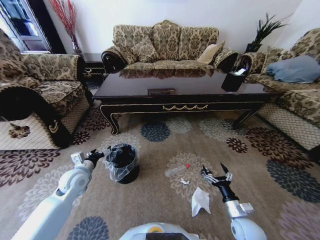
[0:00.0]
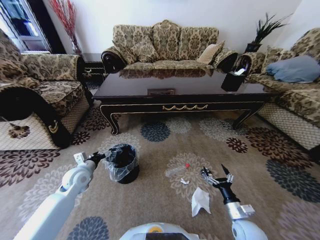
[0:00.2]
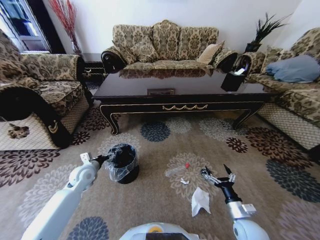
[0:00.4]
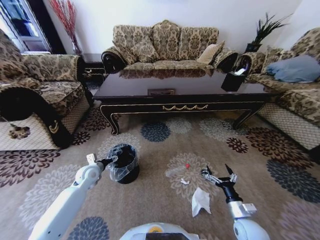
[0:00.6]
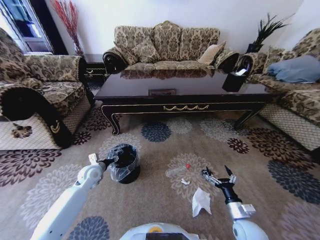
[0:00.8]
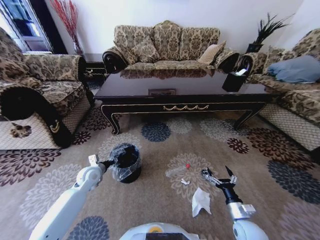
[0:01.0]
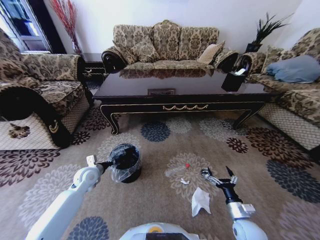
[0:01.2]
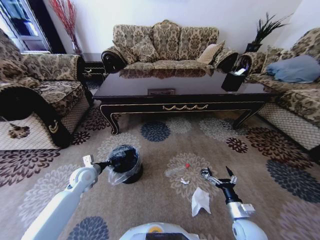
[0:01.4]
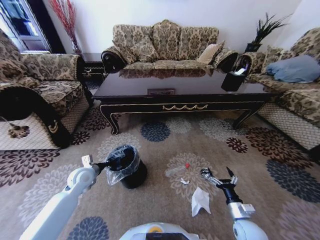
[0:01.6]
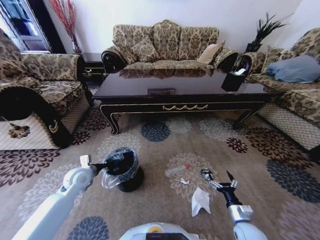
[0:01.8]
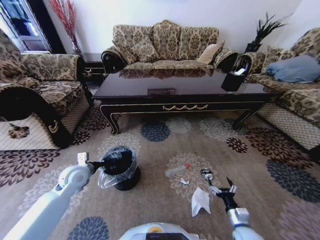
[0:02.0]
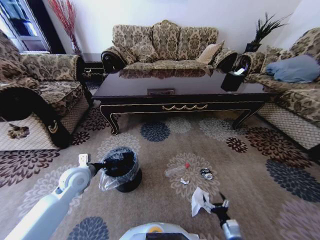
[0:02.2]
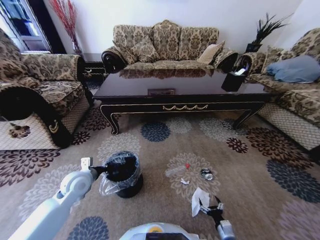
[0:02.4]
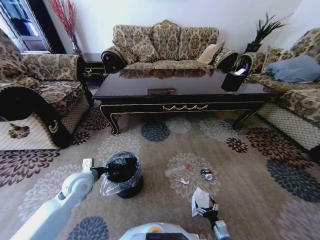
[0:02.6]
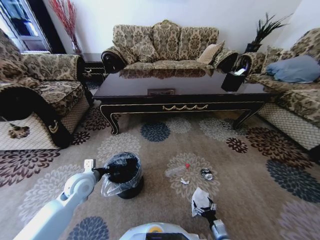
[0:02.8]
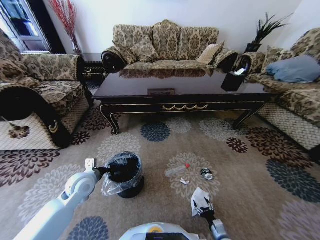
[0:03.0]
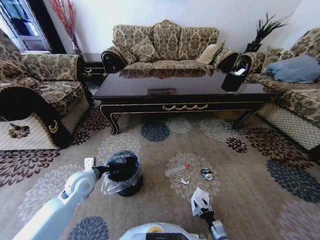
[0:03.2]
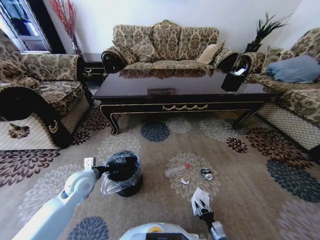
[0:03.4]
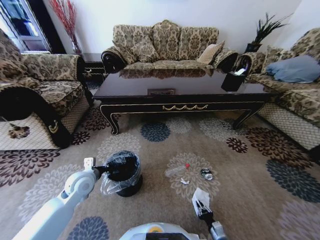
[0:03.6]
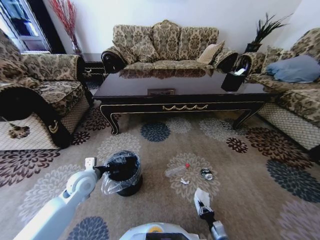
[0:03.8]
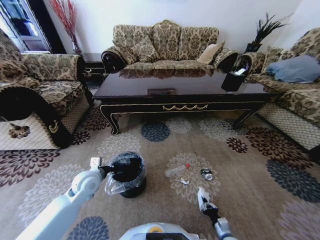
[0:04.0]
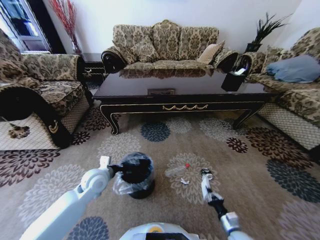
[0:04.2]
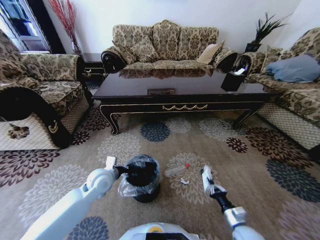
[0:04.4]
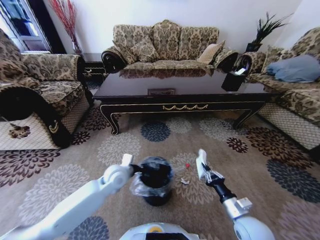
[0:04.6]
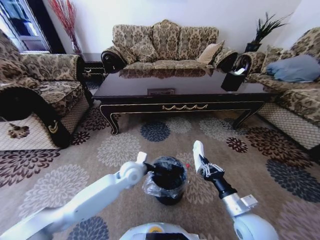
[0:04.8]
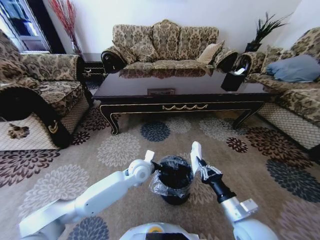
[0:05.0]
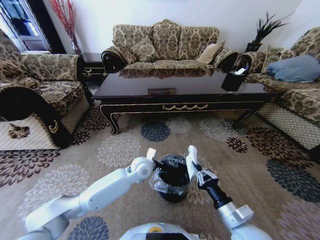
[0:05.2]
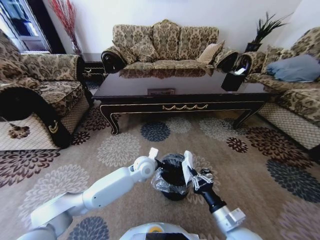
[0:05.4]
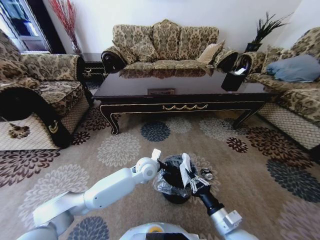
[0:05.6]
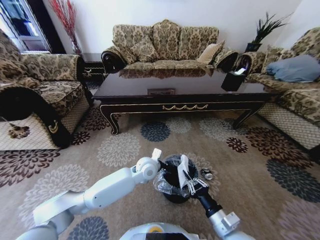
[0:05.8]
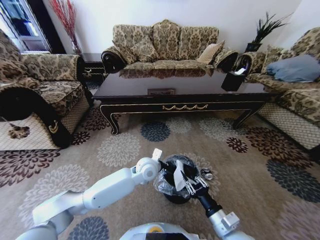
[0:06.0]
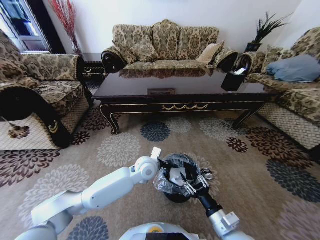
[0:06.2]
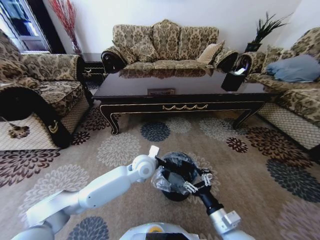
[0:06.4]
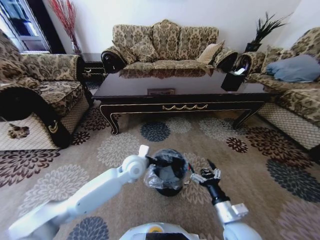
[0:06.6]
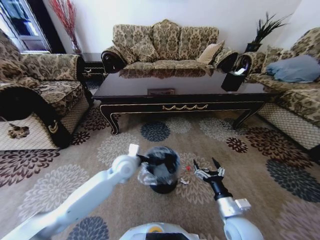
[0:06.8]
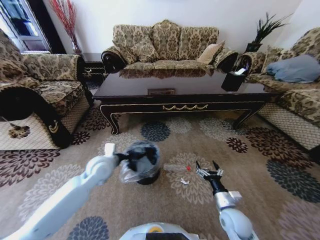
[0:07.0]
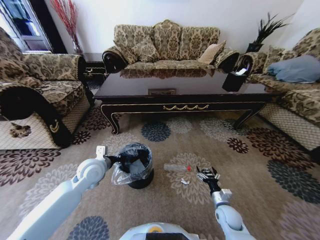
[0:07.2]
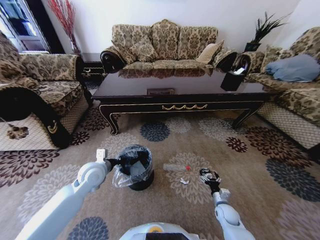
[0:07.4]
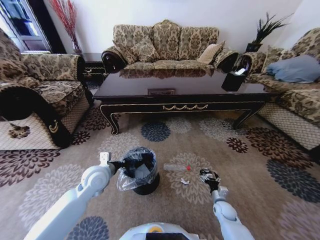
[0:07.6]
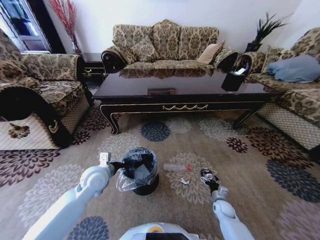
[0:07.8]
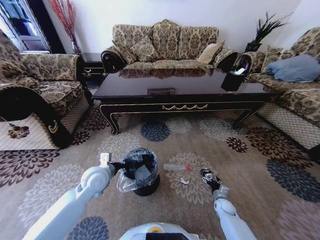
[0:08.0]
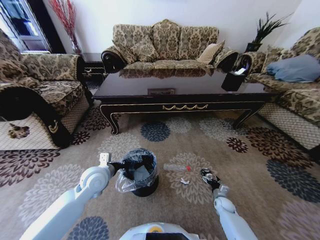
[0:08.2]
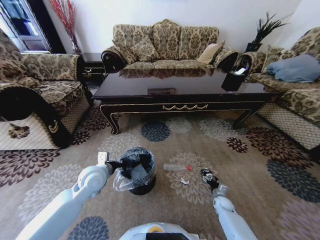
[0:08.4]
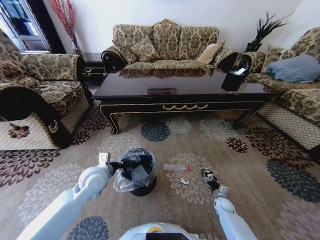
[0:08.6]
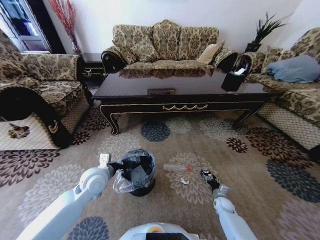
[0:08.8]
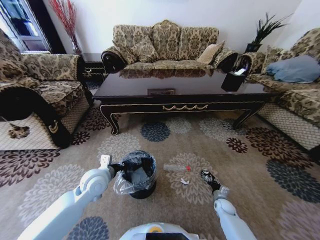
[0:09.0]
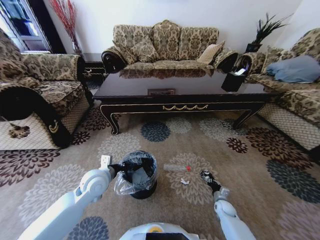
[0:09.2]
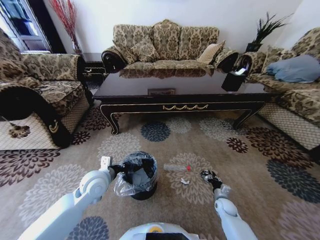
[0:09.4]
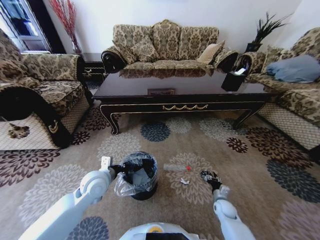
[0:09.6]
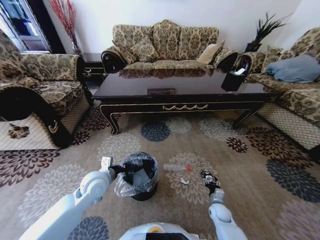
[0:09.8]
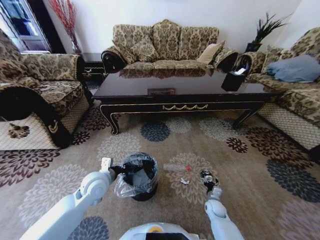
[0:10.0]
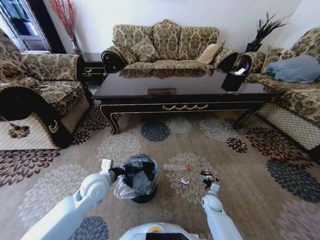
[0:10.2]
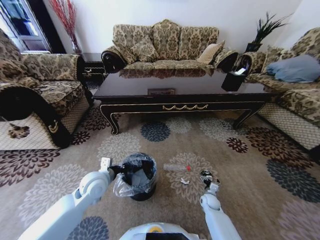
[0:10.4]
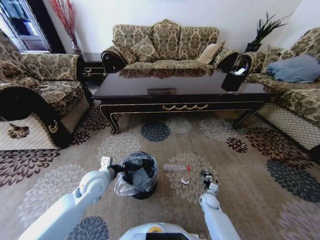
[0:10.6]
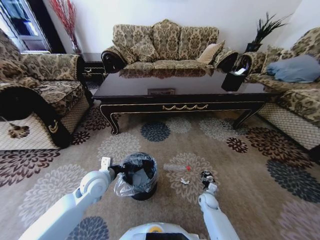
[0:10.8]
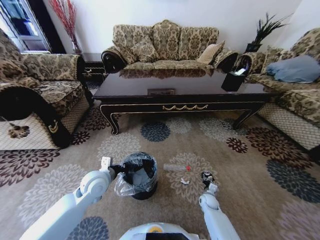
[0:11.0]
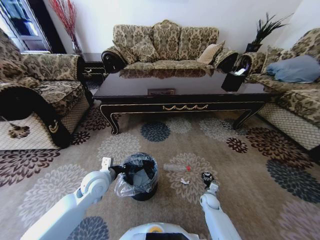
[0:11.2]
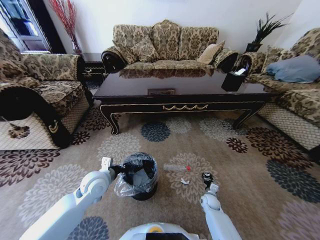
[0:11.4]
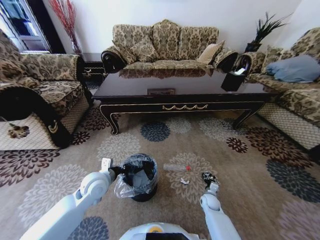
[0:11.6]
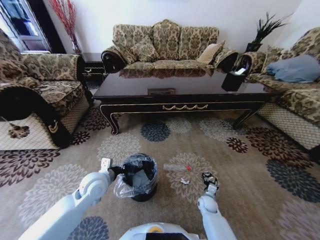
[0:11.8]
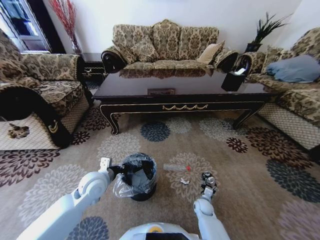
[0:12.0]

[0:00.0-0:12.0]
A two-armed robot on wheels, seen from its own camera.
Task of the whole recording: Move to the front of the table and pick up the trash from the floor, then place it into the trash bin.
0:00.0 to 0:01.6: The left gripper closes its fingers.
0:01.6 to 0:03.0: The right gripper travels downward by some 15 cm, while the left gripper ends up roughly 5 cm from where it was.
0:03.0 to 0:04.4: The left gripper travels to the right by some 10 cm. Meanwhile the right gripper travels upward by about 15 cm, and closes its fingers.
0:04.4 to 0:06.0: The left gripper is displaced to the right by about 20 cm. Meanwhile the right gripper shifts roughly 15 cm to the left and upward.
0:06.0 to 0:07.6: The left gripper goes some 20 cm to the left. Meanwhile the right gripper travels downward, forward and to the right by roughly 25 cm, and opens.
0:07.6 to 0:09.0: The right gripper changes place by some 5 cm, and closes up.
0:09.0 to 0:10.4: The right gripper travels to the left by about 10 cm, and opens up.
0:10.4 to 0:12.0: The right gripper changes place by about 5 cm, and closes, then opens again.

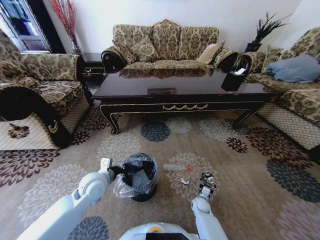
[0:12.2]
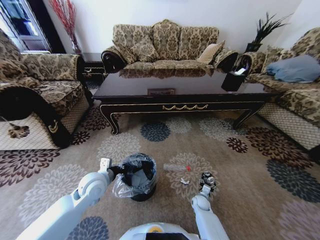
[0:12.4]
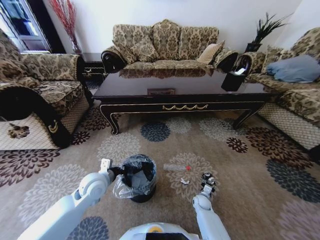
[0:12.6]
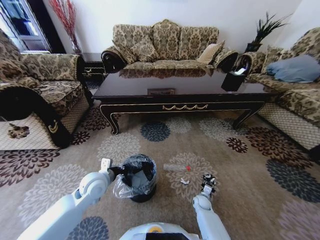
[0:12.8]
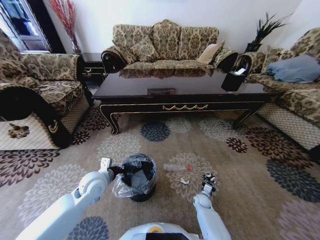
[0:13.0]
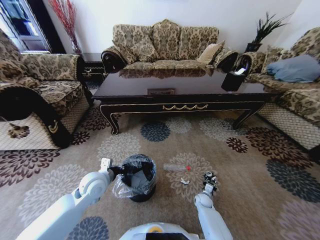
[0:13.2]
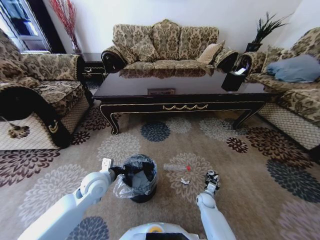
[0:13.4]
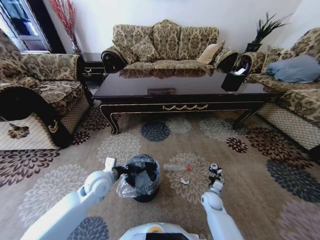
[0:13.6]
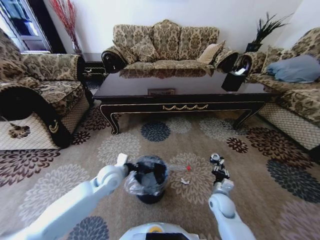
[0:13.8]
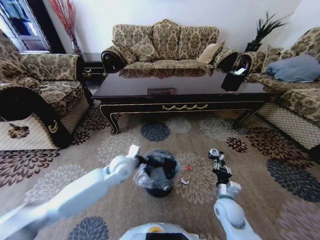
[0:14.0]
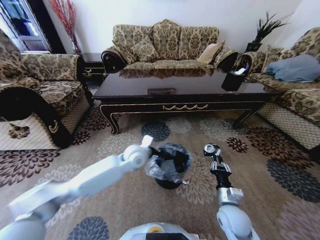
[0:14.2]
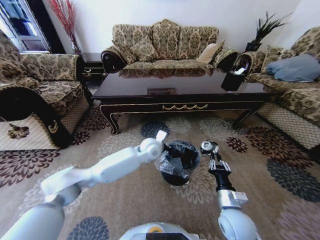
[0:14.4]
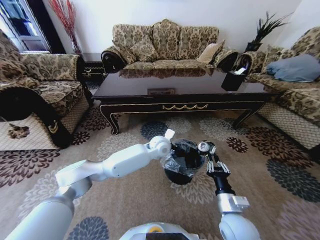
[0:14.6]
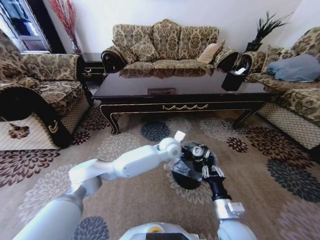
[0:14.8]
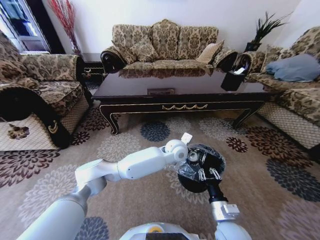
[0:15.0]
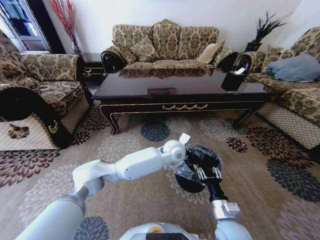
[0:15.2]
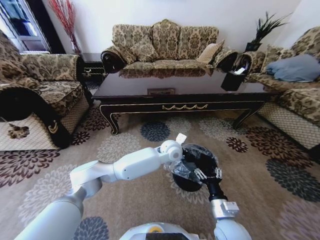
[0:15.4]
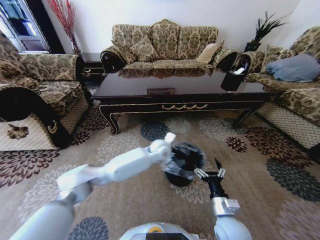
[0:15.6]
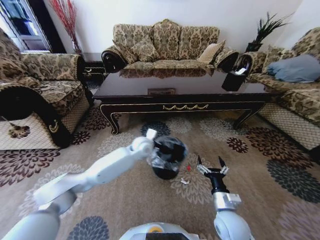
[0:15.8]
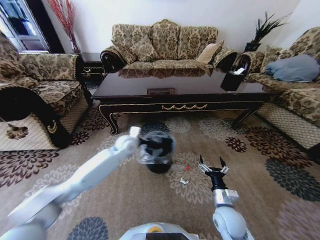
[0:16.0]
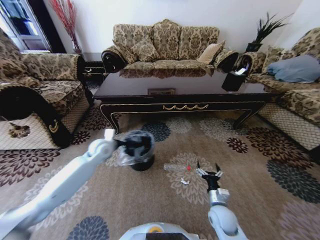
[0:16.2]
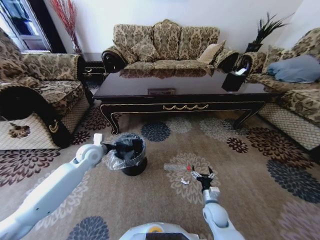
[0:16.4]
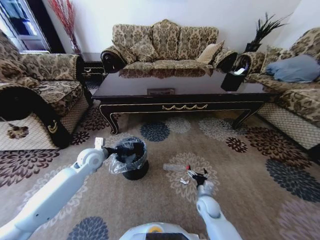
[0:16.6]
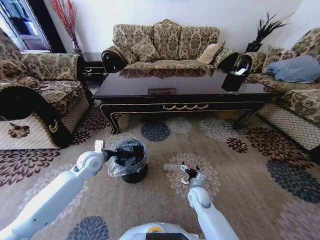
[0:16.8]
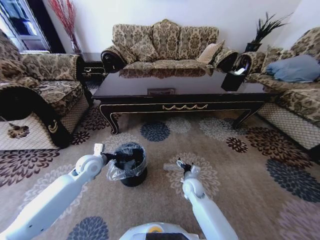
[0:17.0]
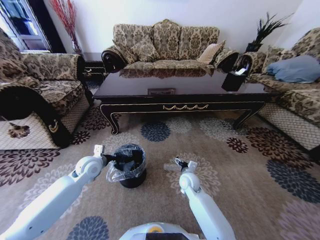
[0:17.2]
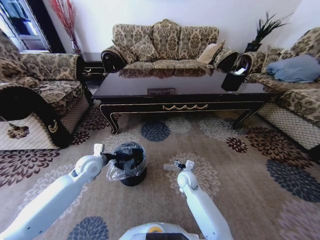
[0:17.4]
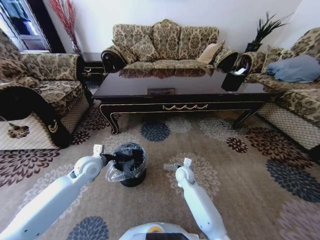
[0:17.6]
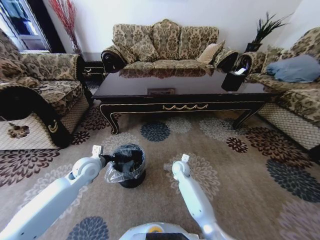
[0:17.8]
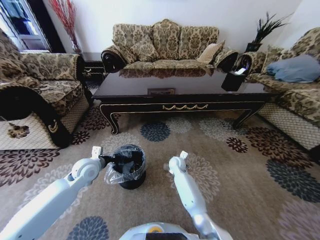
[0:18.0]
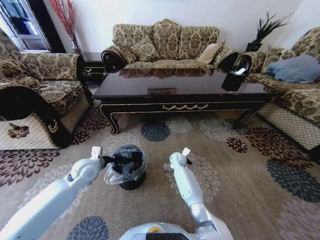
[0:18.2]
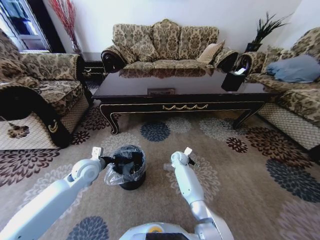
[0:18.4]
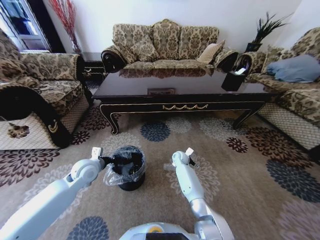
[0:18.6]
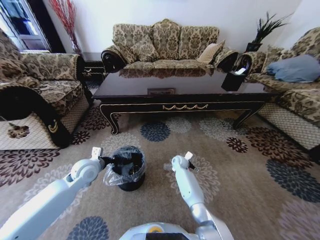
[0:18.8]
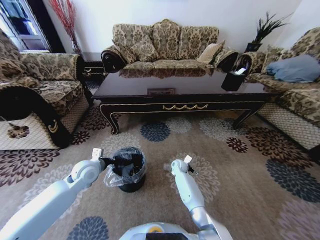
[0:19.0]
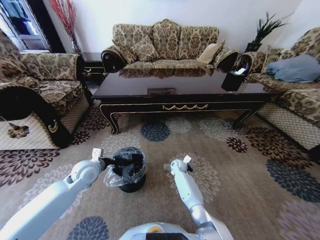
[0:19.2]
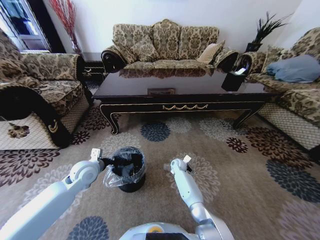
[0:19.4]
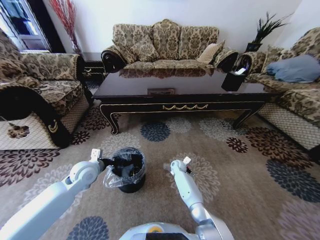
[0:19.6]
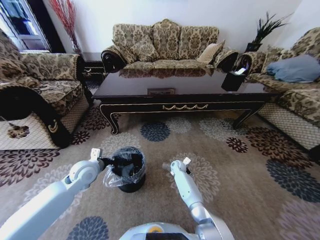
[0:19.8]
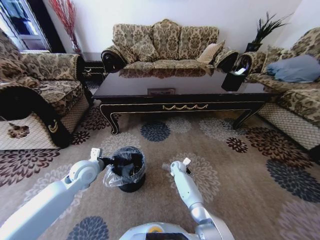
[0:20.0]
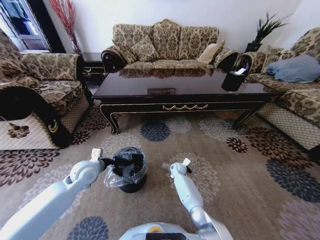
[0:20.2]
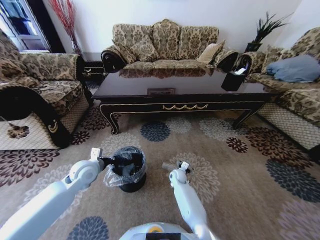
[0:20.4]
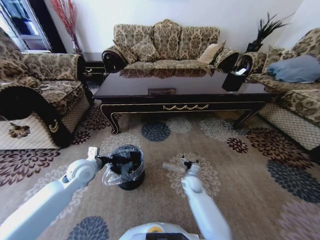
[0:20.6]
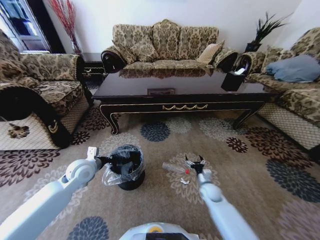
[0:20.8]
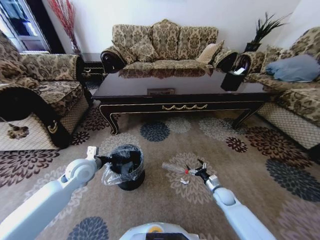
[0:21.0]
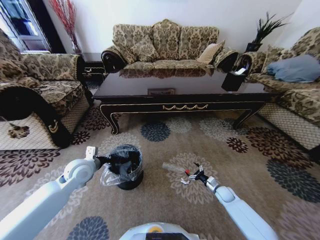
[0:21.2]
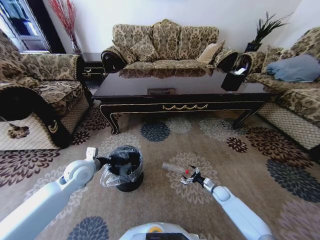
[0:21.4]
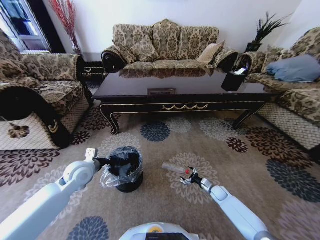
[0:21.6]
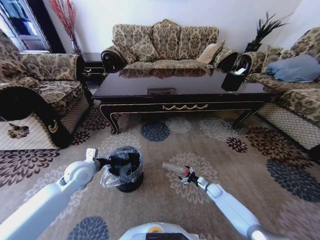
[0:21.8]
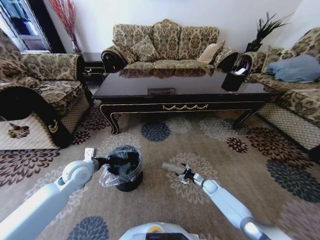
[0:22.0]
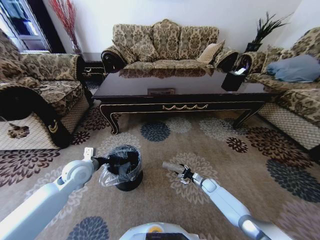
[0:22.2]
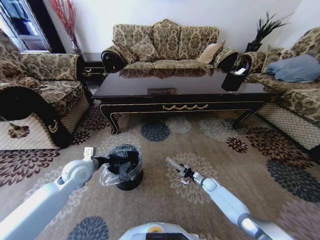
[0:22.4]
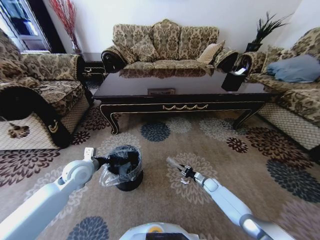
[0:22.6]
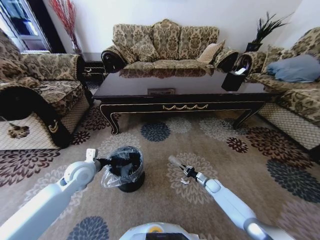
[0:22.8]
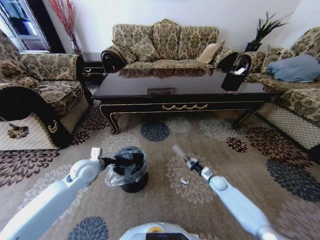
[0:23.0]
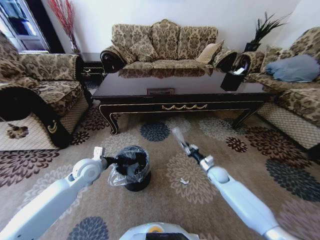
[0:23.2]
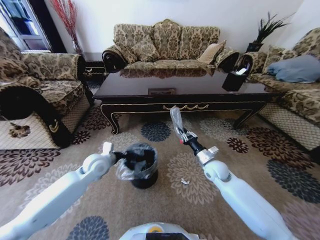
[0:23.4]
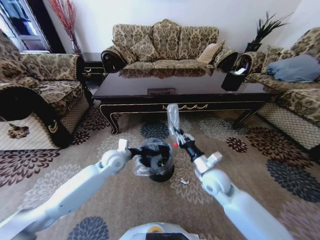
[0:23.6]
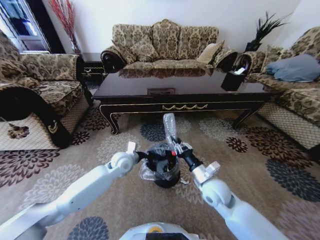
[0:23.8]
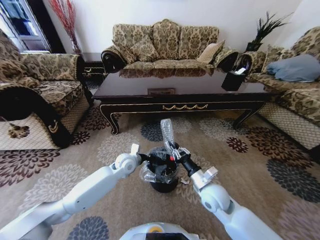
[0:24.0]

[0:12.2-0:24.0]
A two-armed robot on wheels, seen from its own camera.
Task of the whole recording: Move to the front of the table and pick up the trash from the floor, then place it into the trash bin.
0:12.2 to 0:13.6: The right gripper travels upward by about 10 cm, and closes up.
0:13.6 to 0:15.2: The left gripper goes some 30 cm to the right, while the right gripper goes roughly 20 cm upward and backward.
0:15.2 to 0:16.6: The right gripper moves downward and forward, some 20 cm, and opens; the left gripper travels to the left by some 35 cm.
0:16.6 to 0:18.2: The right gripper heads forward and to the left, covering about 25 cm.
0:18.2 to 0:19.6: The right gripper is displaced downward by some 5 cm.
0:19.6 to 0:21.0: The right gripper goes some 30 cm to the right and backward.
0:21.0 to 0:22.6: The right gripper moves forward and downward, roughly 10 cm, and closes.
0:22.6 to 0:24.0: The right gripper moves upward, to the left and backward, some 35 cm. The left gripper is displaced to the right by about 15 cm.
